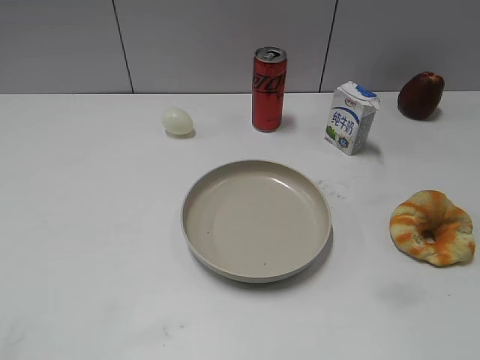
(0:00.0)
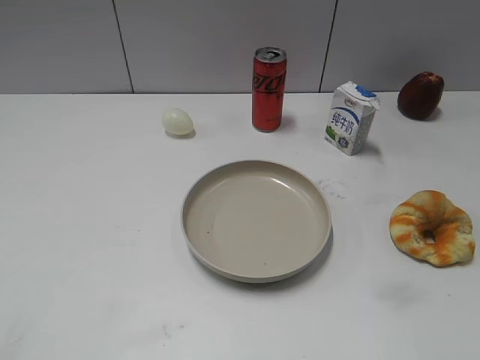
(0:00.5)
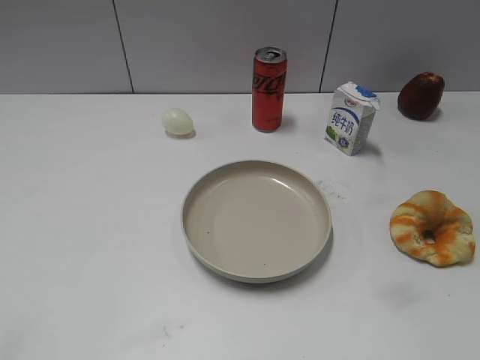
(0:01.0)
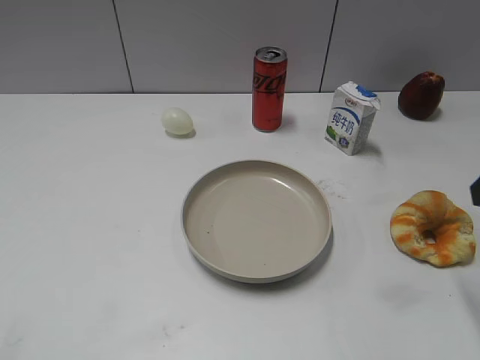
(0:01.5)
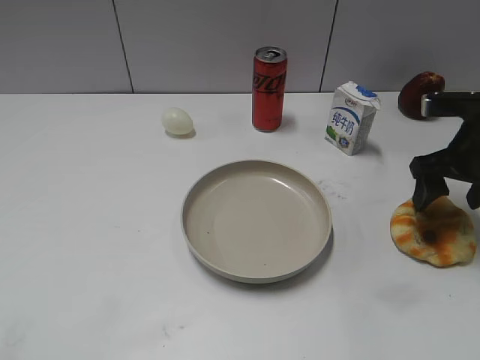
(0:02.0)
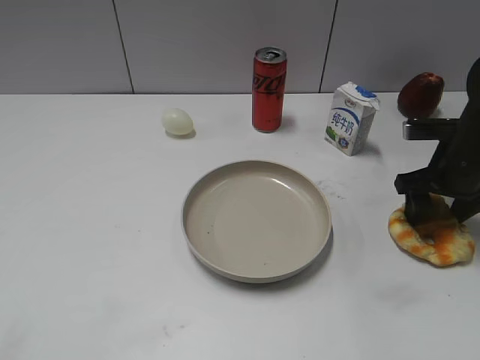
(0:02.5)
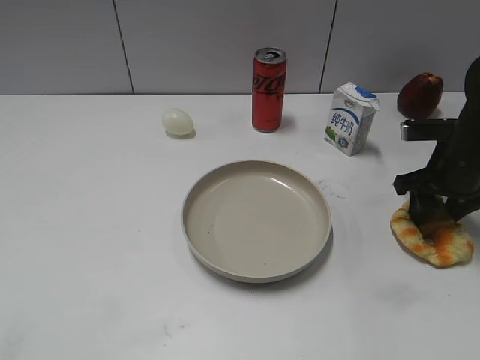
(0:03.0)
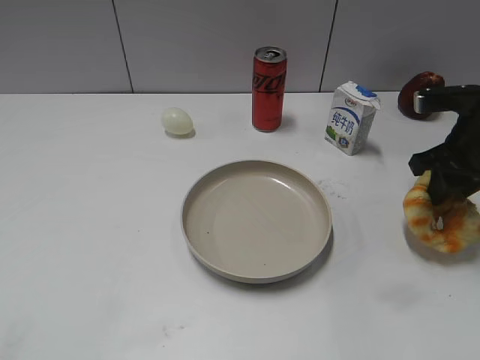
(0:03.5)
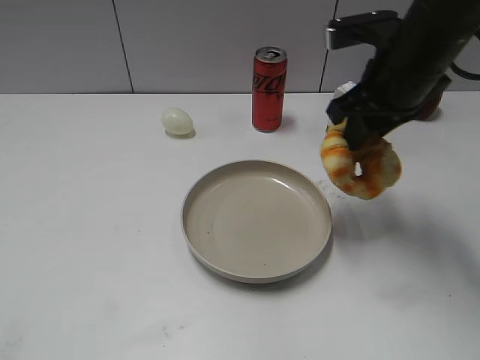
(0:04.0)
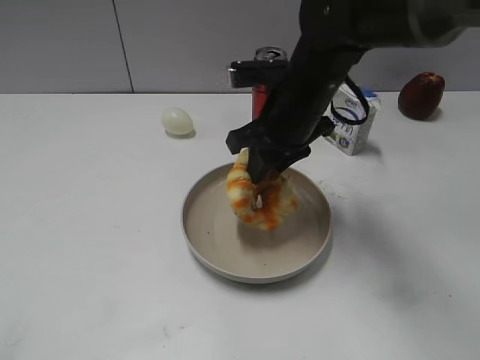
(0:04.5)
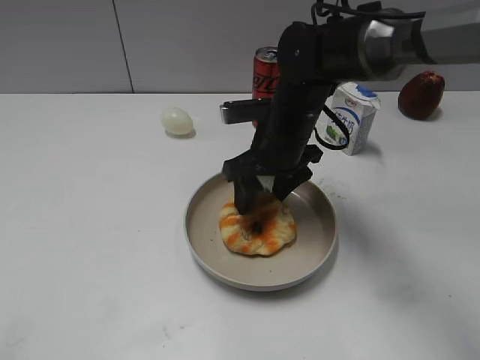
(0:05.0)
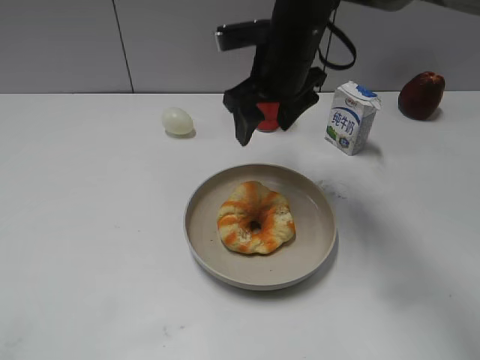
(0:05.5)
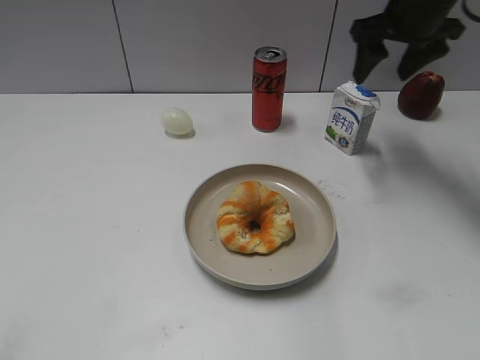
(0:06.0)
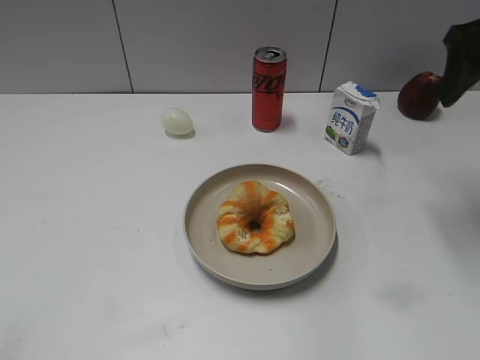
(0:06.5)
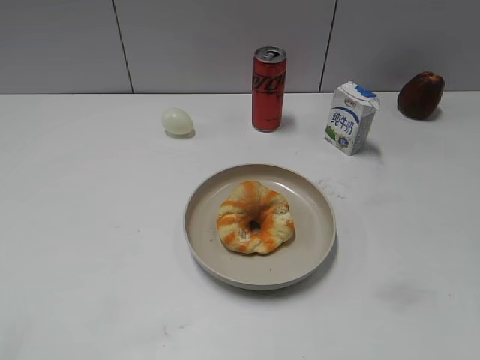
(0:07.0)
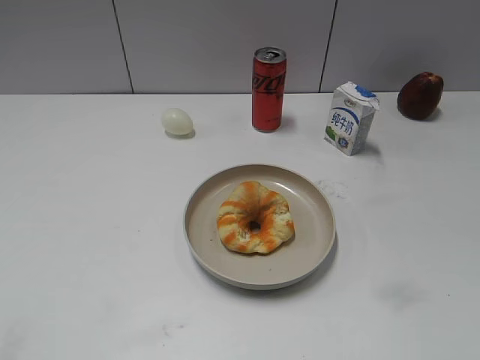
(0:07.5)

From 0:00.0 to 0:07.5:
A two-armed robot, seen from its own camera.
Step, from 0:01.0 to 0:03.0: Grasp the round bread with right gripper.
Step, from 0:03.5 to 0:05.0: Place the round bread on the plate with right gripper.
From 0:02.0 to 0:04.0: The right gripper moves to the left and upward, about 15 cm, and closes up.
From 0:04.0 to 0:05.5: The right gripper shifts roughly 10 cm to the left and forward, travels downward and back again, approximately 10 cm each way, and opens.
From 0:05.5 to 0:07.5: The right gripper goes some 40 cm backward and to the right.

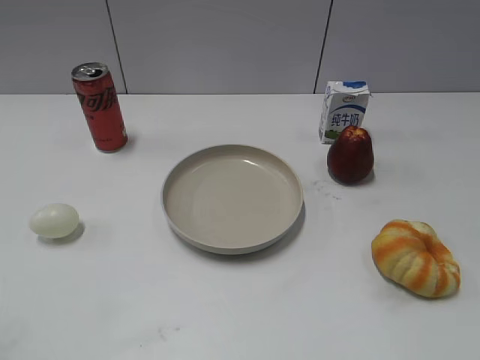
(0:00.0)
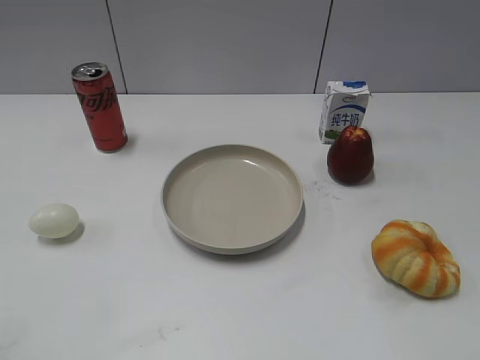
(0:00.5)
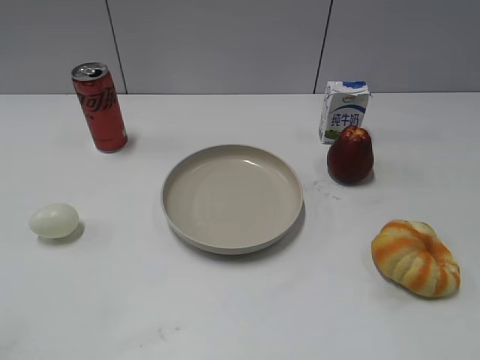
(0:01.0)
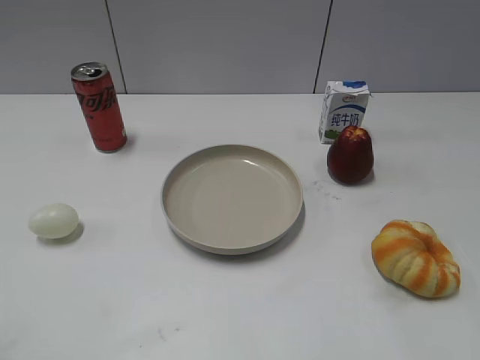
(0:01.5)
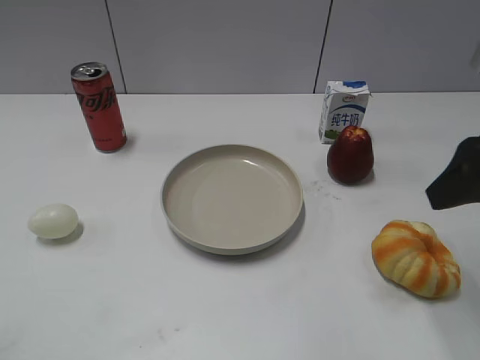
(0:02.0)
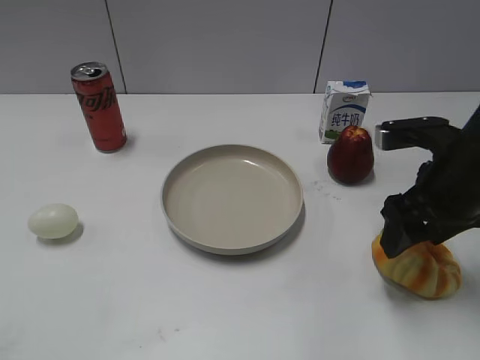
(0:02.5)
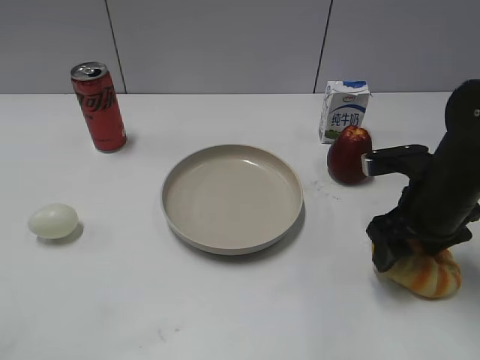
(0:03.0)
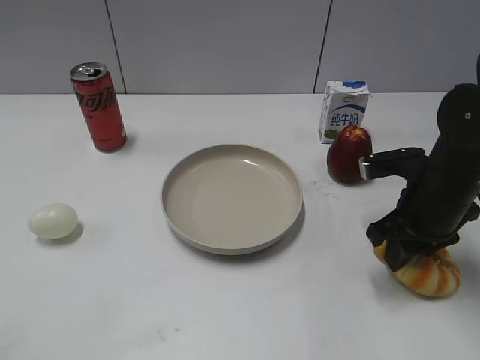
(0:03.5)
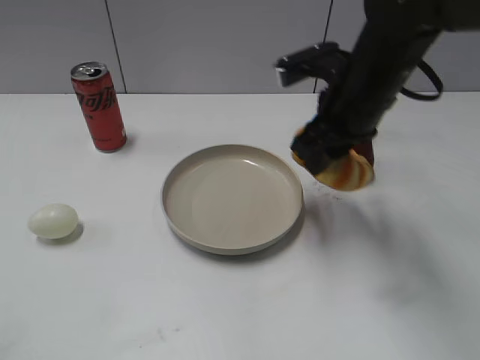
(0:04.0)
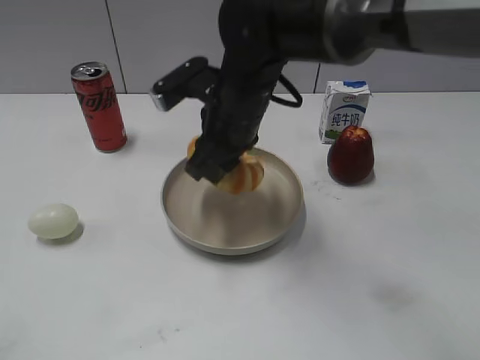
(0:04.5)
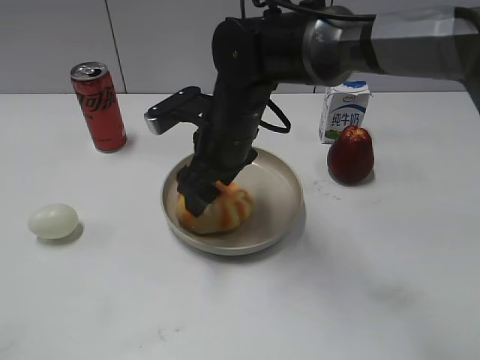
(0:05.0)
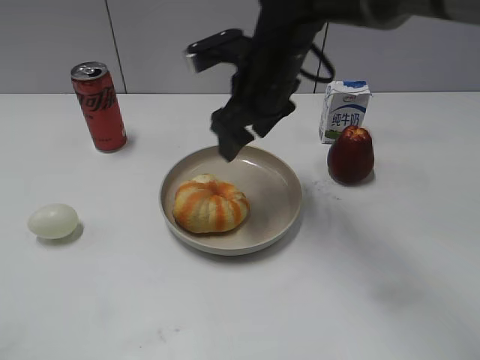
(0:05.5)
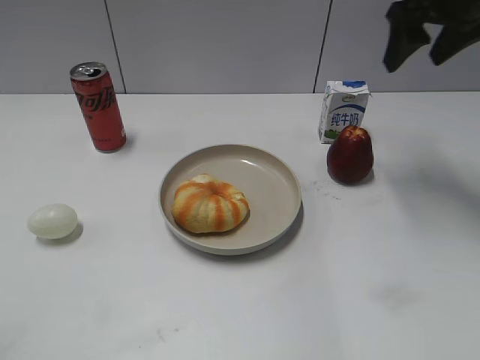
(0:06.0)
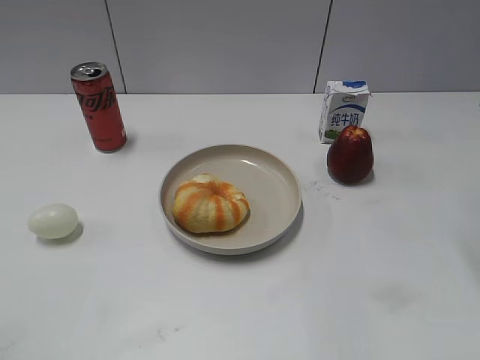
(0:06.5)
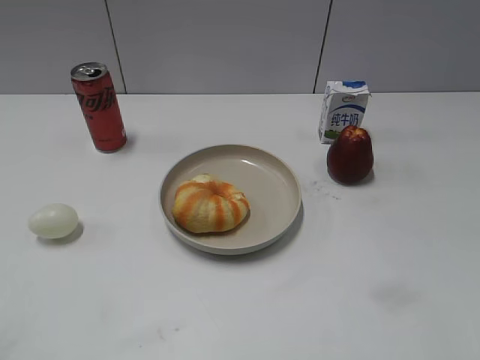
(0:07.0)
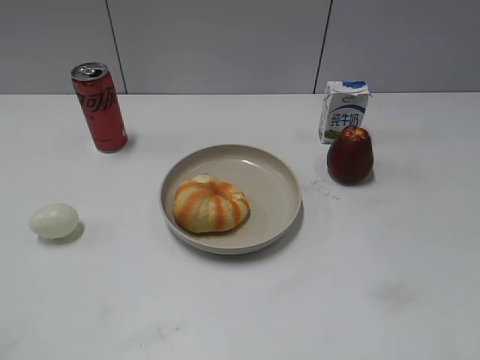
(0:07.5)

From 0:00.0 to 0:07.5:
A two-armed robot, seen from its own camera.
Step, from 0:00.0 to 0:03.0: Grasp the round bread with right gripper.
Step, from 0:04.0 to 0:05.0: Place the round bread on the plate with right gripper.
From 0:02.0 to 0:04.0: The right gripper shifts approximately 20 cm to the left and forward, goes downward and returns, some 15 cm each way, and closes its fingers.
From 0:04.0 to 0:05.5: The right gripper shifts some 5 cm to the left, and opens up.
From 0:05.5 to 0:07.5: The right gripper shifts roughly 40 cm backward and to the right.

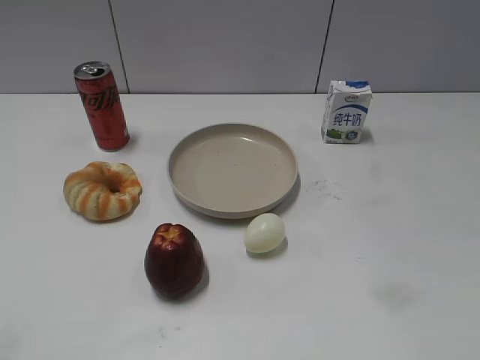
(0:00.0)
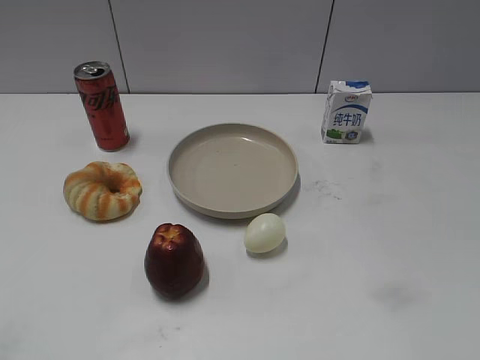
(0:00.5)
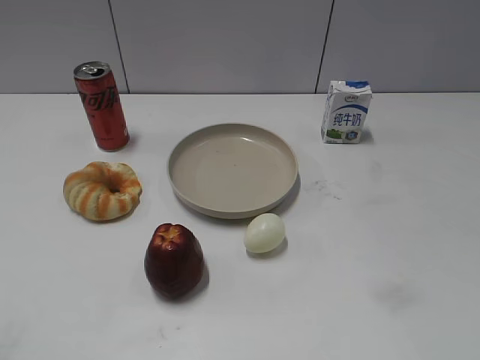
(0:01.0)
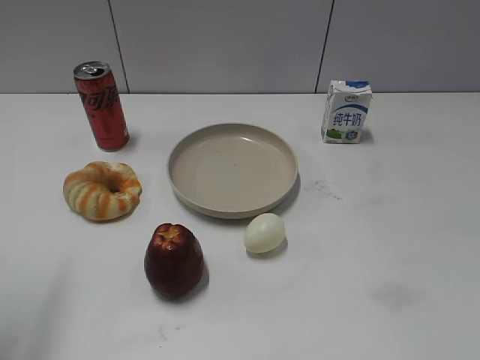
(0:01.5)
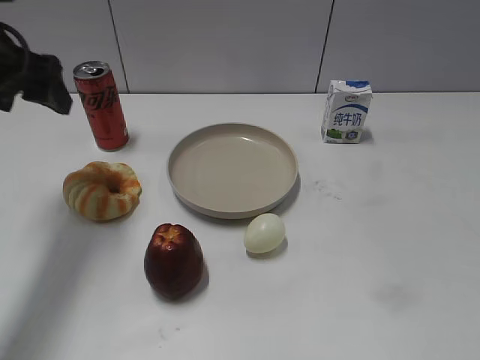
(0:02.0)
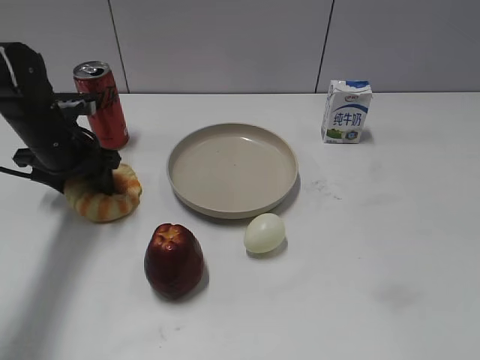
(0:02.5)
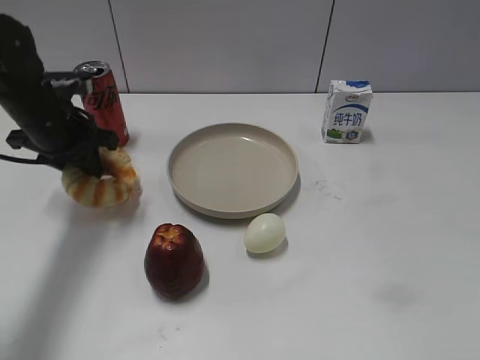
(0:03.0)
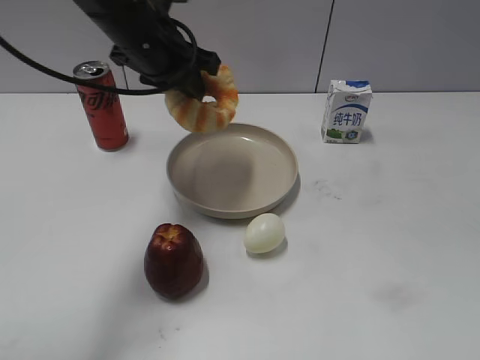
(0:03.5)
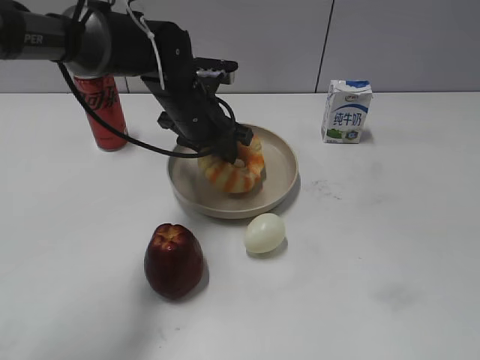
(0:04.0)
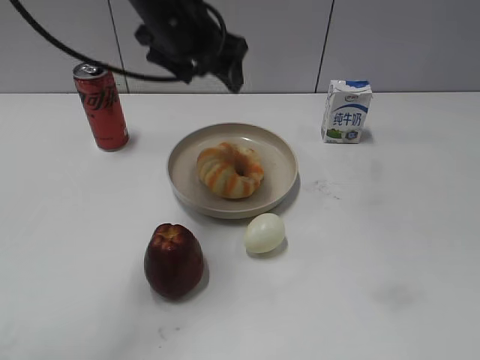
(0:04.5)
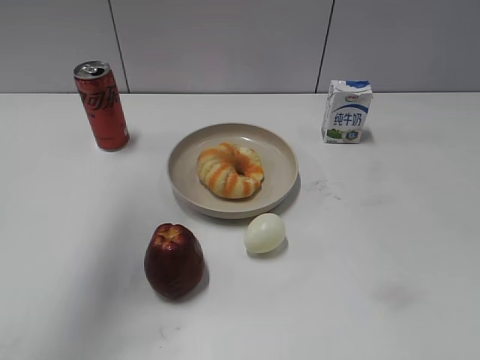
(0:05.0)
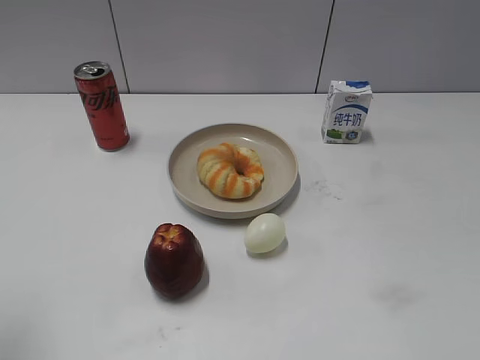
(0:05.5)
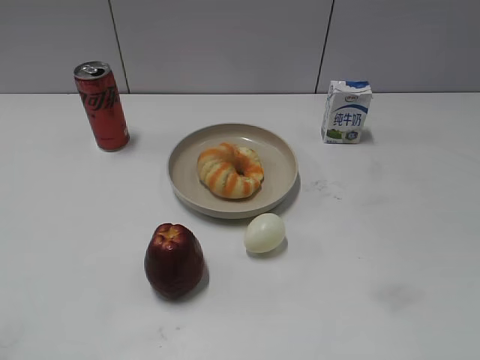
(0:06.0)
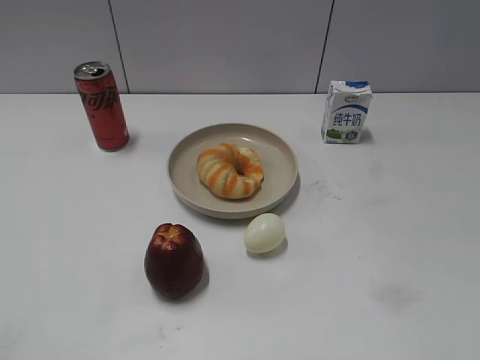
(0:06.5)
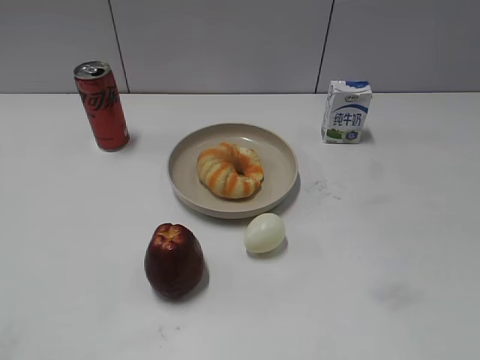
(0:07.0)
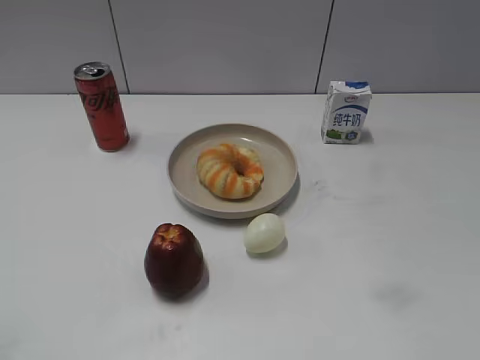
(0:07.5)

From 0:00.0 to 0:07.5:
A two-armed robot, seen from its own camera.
Step, from 0:01.5 to 0:02.5: Grasp the round bread with left gripper.
Step, from 0:03.0 to 0:04.0: Place the round bread on the plate with left gripper.
From 0:02.0 to 0:04.0: The left gripper travels to the right and downward by approximately 25 cm, and closes.
From 0:04.0 to 0:05.5: The left gripper moves to the left, backward and upward, approximately 40 cm, and opens up.
